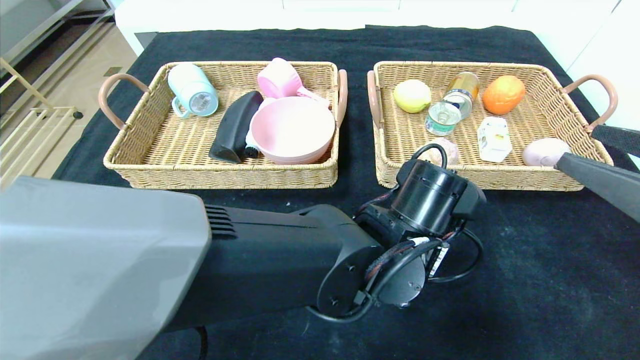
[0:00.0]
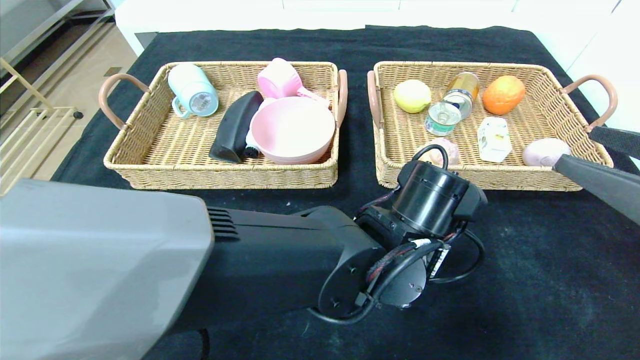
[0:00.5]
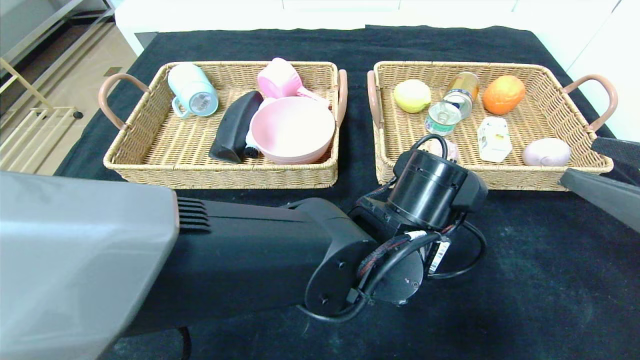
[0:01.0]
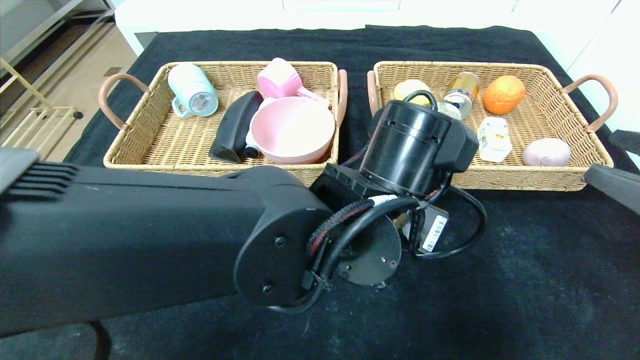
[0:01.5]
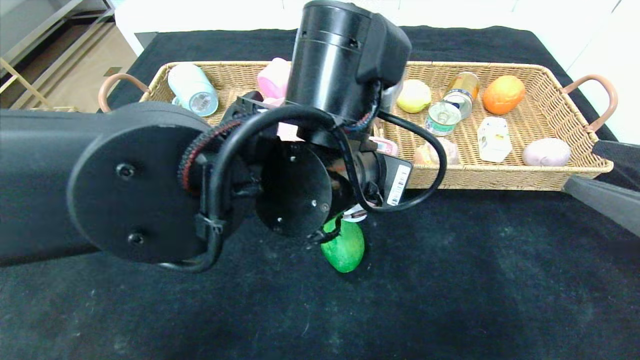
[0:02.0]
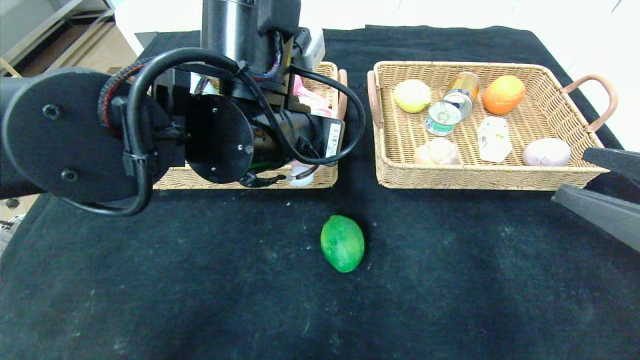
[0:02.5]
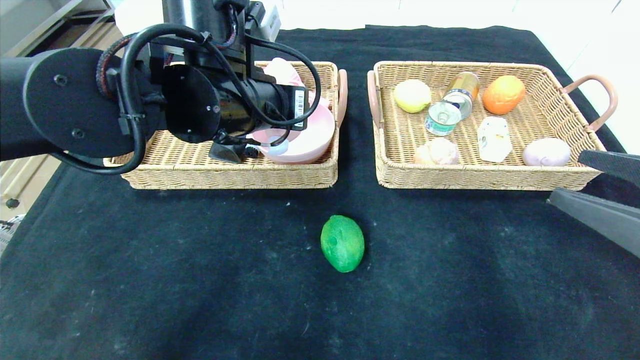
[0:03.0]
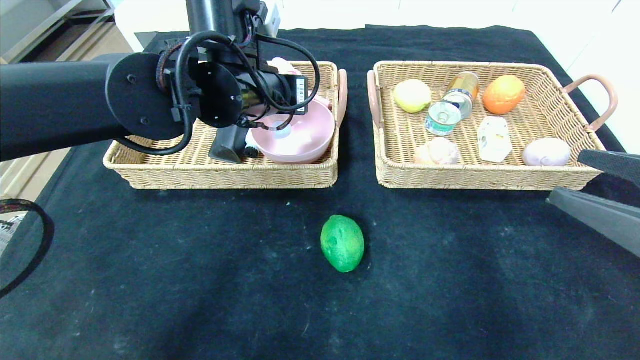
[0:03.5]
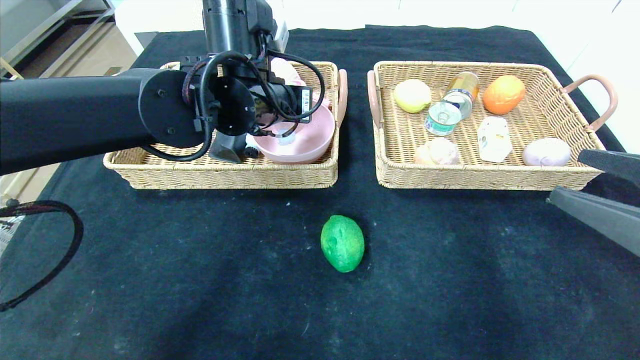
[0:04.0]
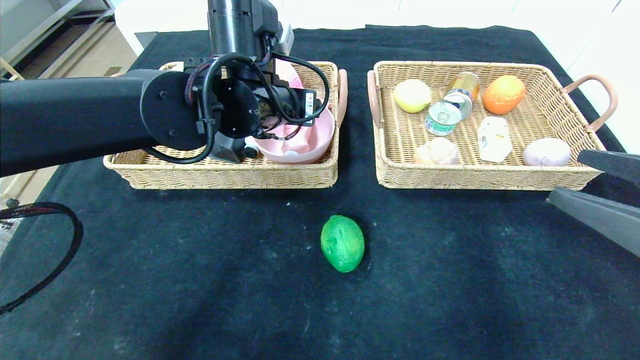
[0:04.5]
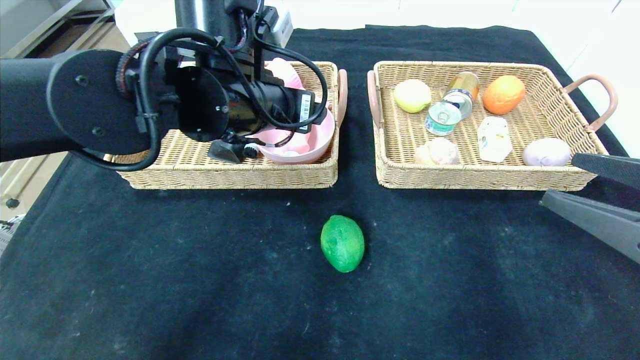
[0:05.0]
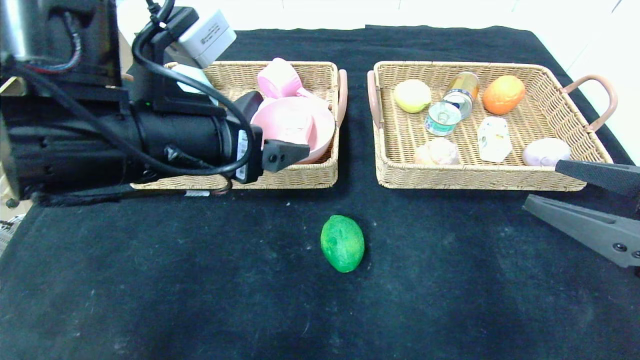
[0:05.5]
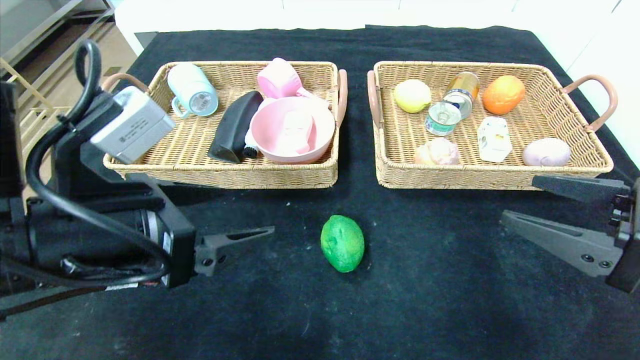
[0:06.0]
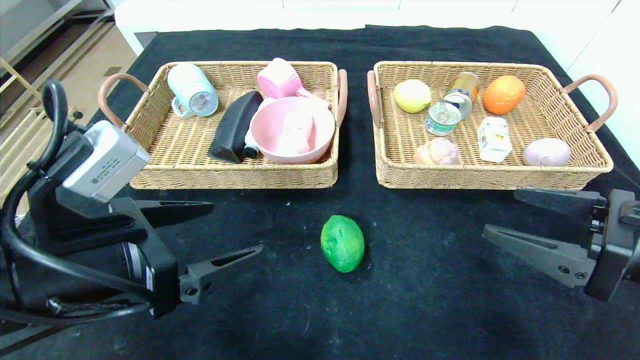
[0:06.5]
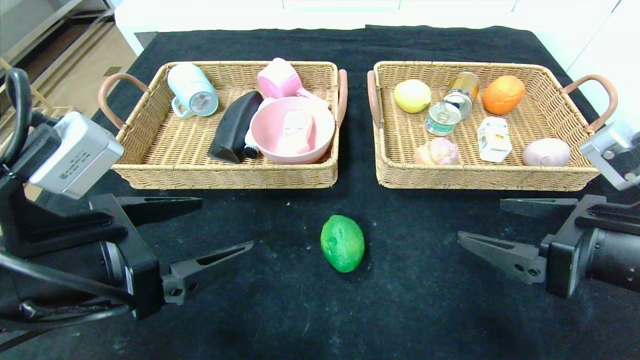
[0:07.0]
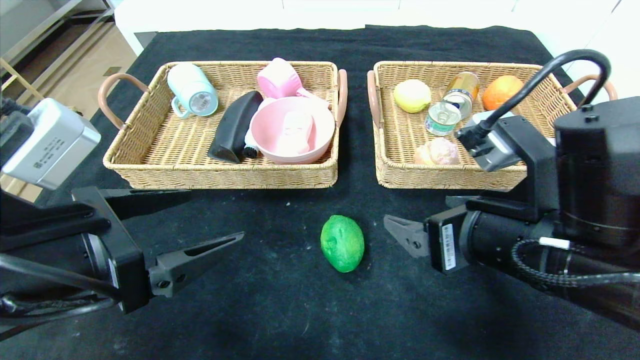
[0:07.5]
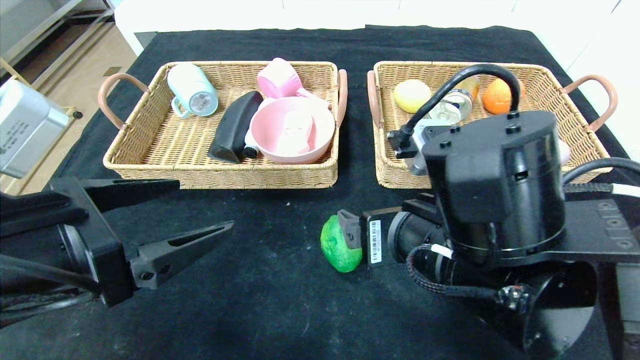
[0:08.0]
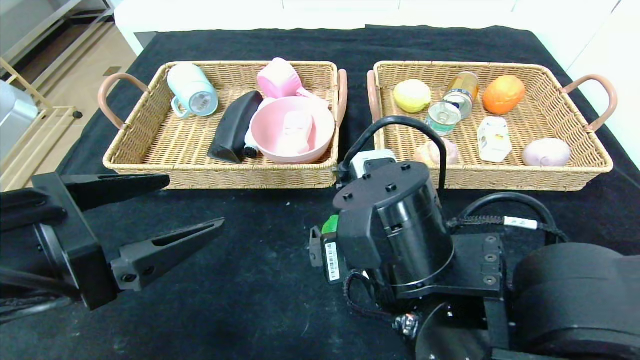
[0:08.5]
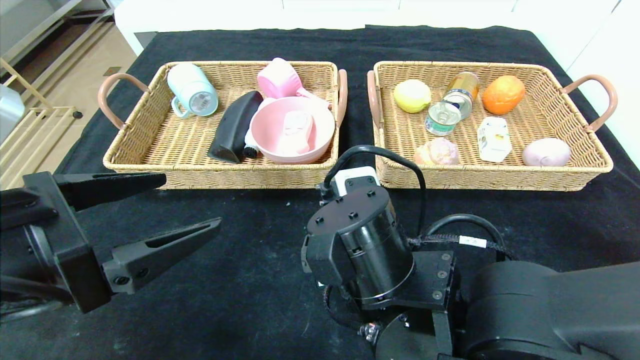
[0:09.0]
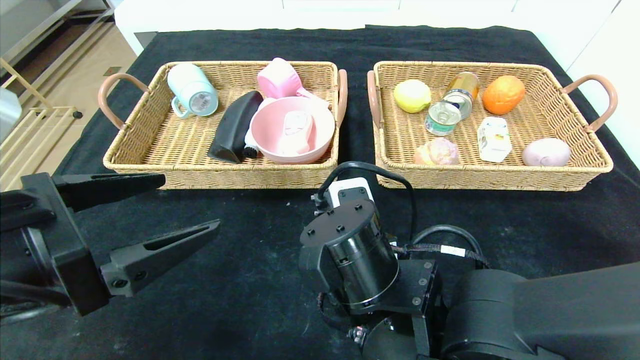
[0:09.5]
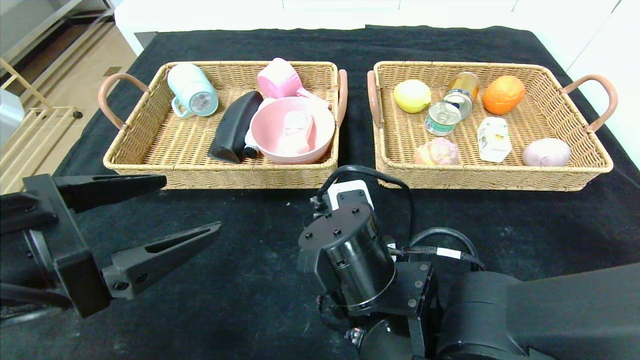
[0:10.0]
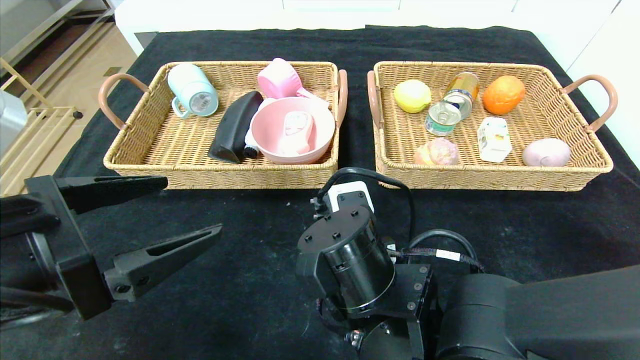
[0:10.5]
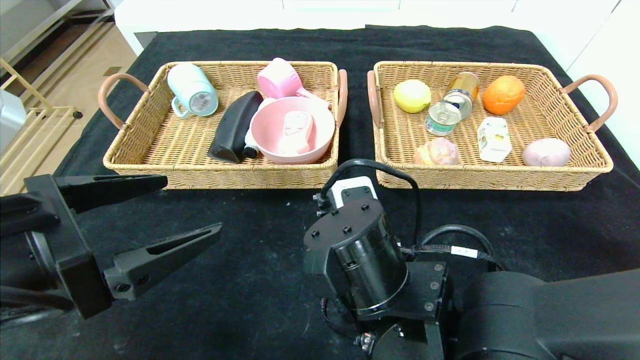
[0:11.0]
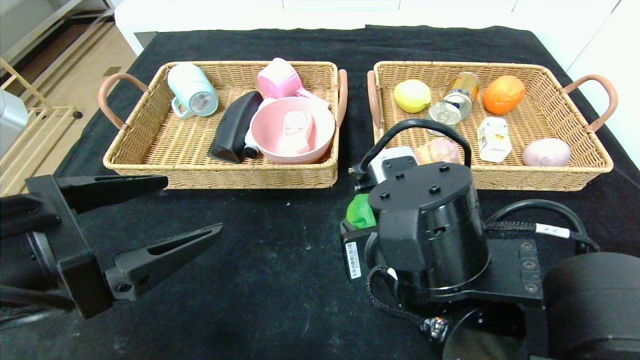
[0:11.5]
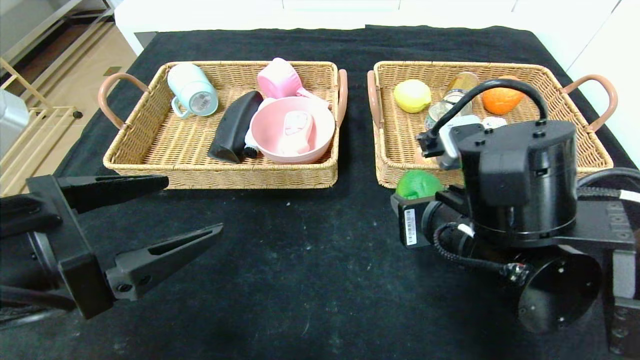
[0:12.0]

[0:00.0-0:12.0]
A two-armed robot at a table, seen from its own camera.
Step, 0:00.0 to 0:04.5: Grasp the detergent and put it in the left basket.
0:00.0 to 0:02.0: The left gripper is displaced upward and to the left by some 15 cm.
0:02.0 to 0:04.0: The left gripper shifts approximately 15 cm forward and to the left.
0:04.0 to 0:06.0: The left gripper goes approximately 20 cm backward and to the left, and opens.
0:06.0 to 0:08.0: The right gripper goes approximately 20 cm to the left.
0:08.0 to 0:10.0: The right gripper is displaced downward and to the left by about 10 cm, and closes.
0:10.0 to 0:12.0: The right gripper goes some 10 cm to the right and upward.

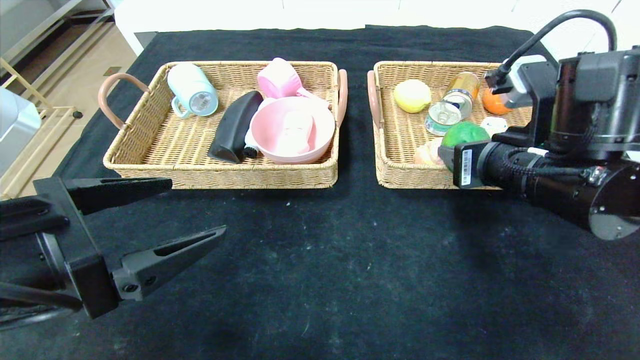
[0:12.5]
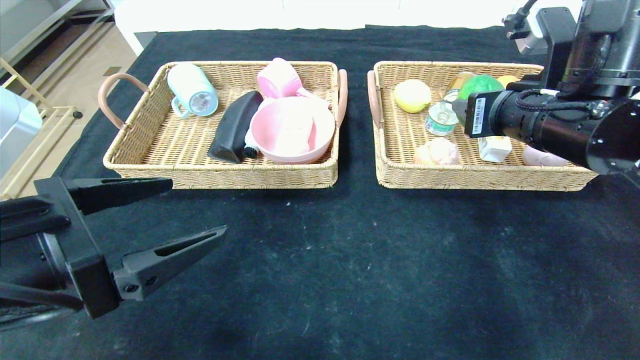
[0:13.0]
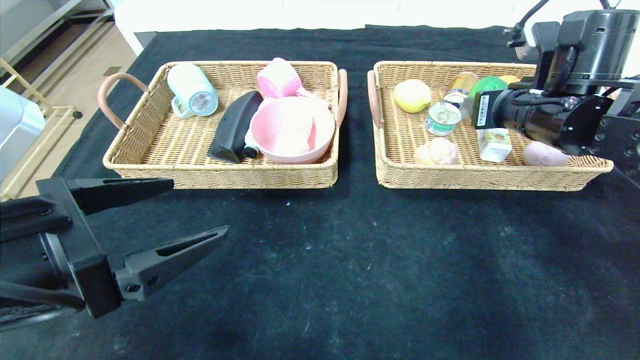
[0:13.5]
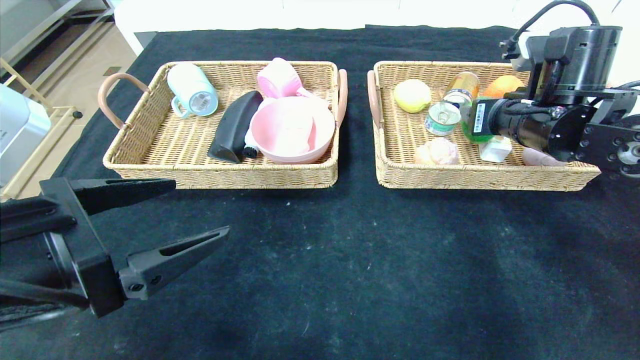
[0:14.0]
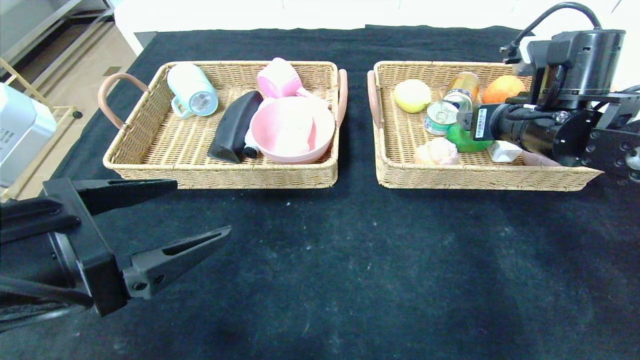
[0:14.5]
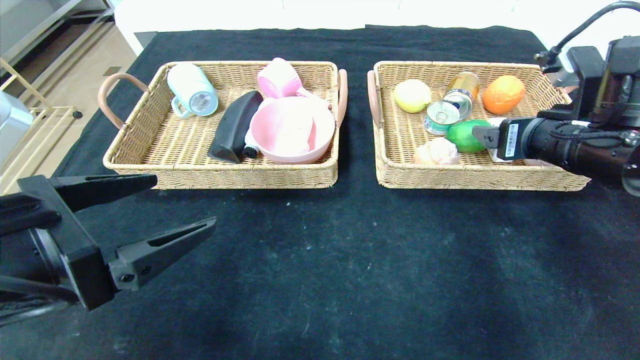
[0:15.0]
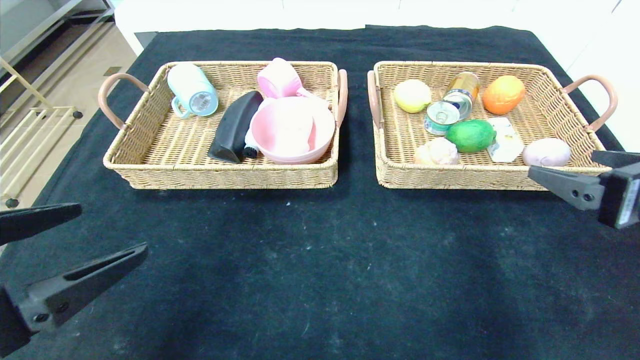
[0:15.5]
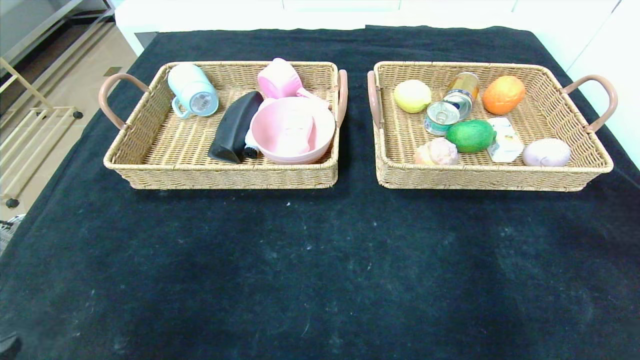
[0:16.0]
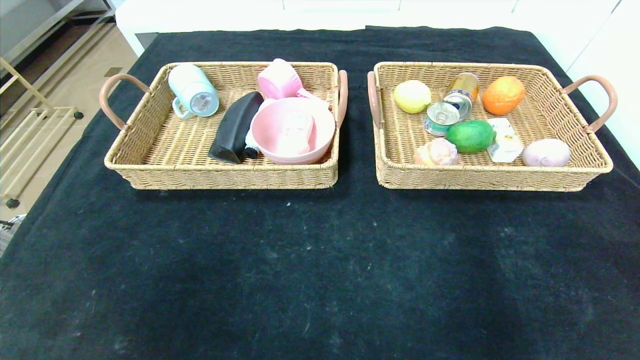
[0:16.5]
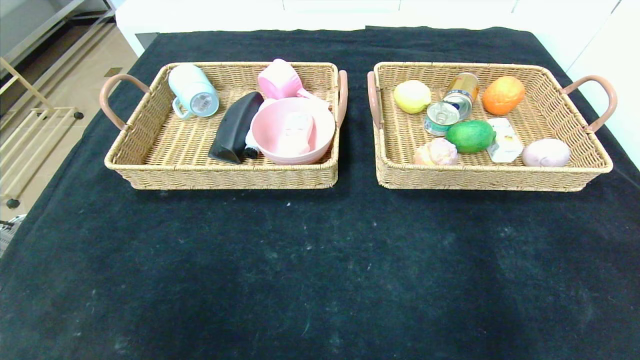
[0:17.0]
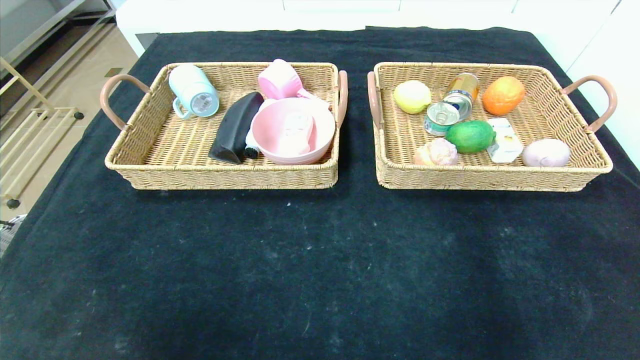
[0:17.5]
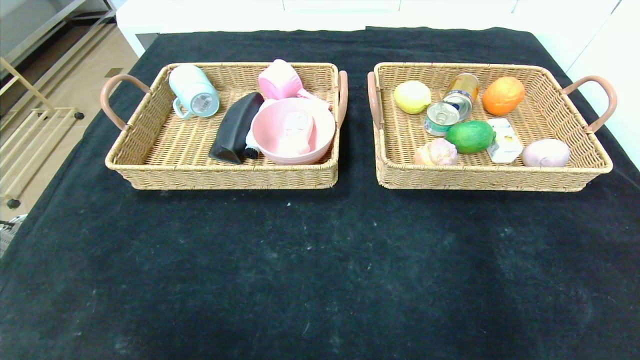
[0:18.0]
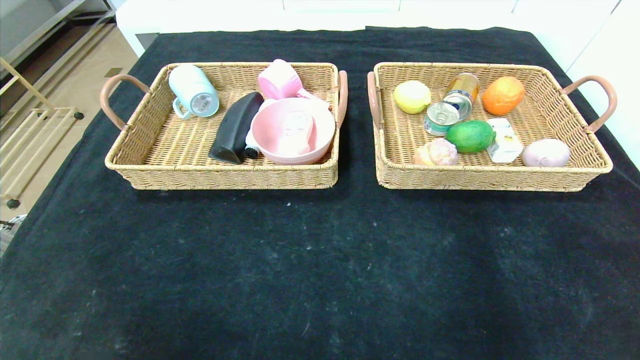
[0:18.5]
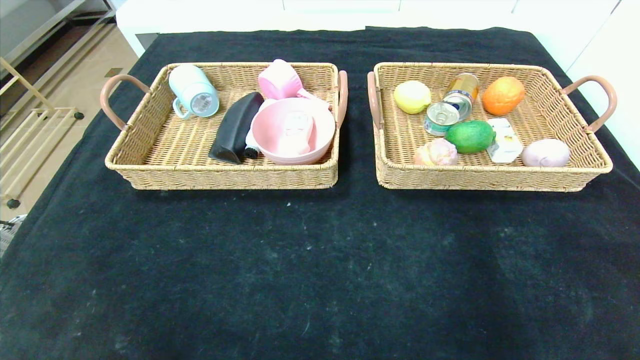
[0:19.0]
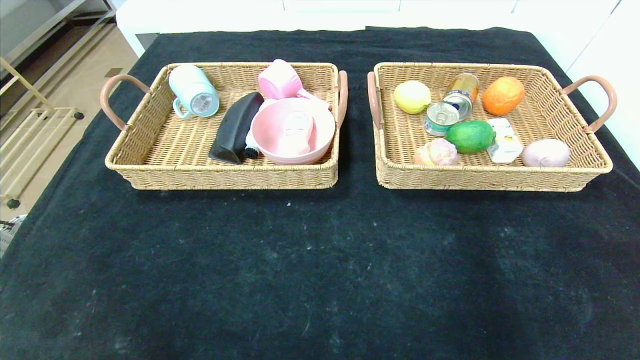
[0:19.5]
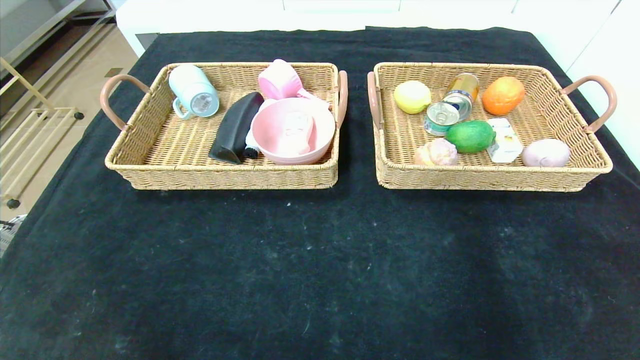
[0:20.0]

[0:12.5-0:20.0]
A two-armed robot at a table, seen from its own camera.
0:12.5 to 0:14.5: The right gripper moves forward and to the right, approximately 10 cm, and opens its fingers.
0:14.5 to 0:16.5: The left gripper travels backward and to the left by some 20 cm. The right gripper travels backward by roughly 40 cm.
0:16.5 to 0:18.0: The right gripper is displaced downward and backward by roughly 10 cm. The left gripper goes approximately 10 cm downward.
